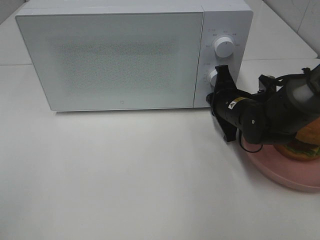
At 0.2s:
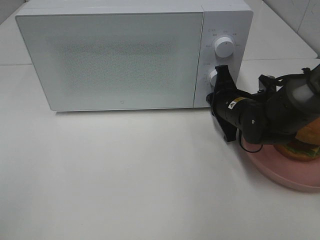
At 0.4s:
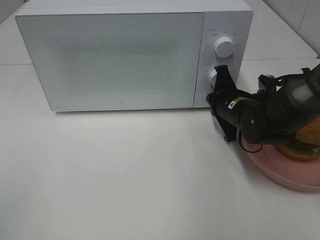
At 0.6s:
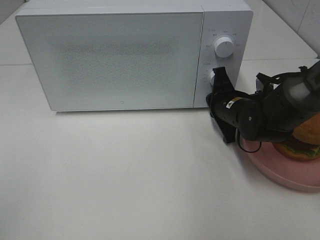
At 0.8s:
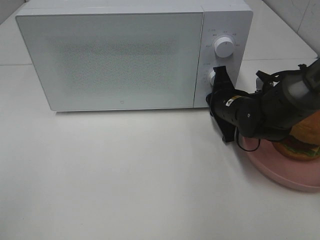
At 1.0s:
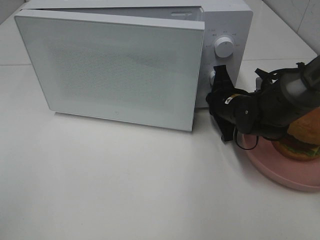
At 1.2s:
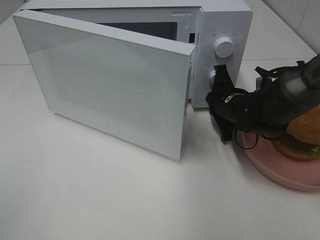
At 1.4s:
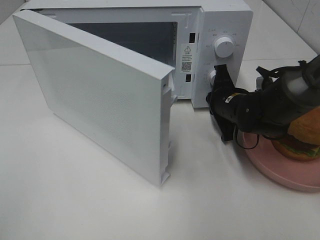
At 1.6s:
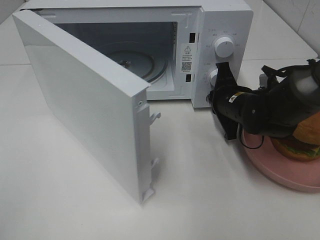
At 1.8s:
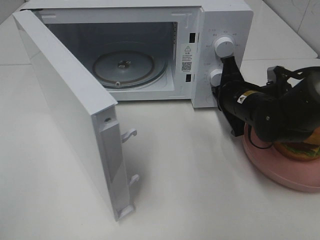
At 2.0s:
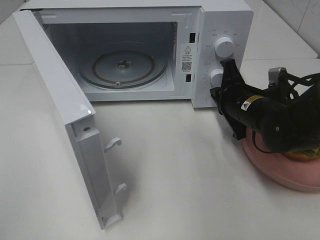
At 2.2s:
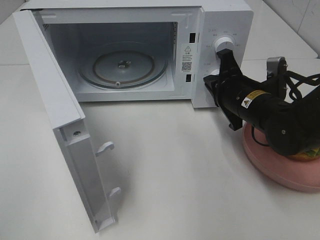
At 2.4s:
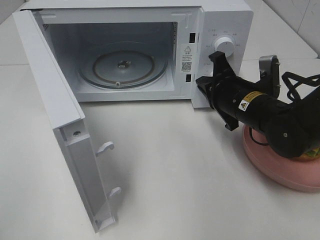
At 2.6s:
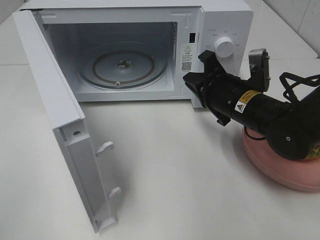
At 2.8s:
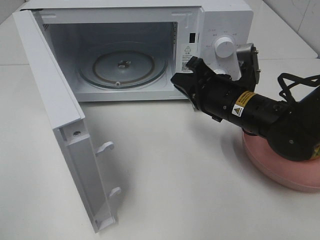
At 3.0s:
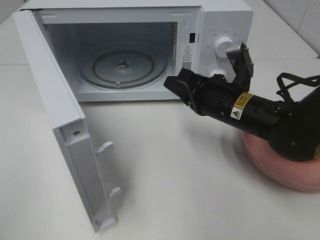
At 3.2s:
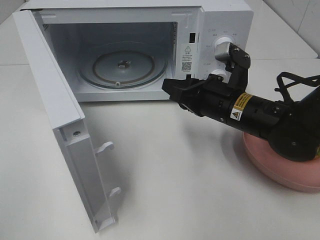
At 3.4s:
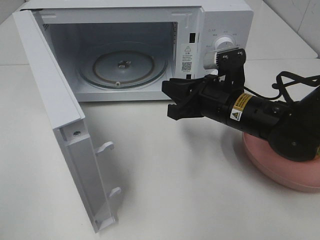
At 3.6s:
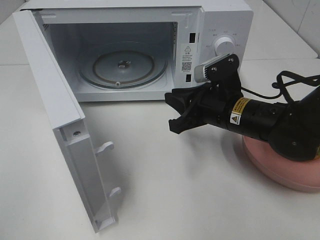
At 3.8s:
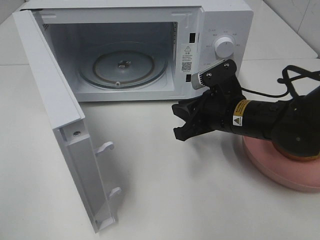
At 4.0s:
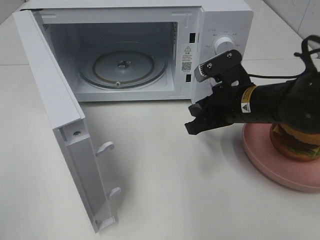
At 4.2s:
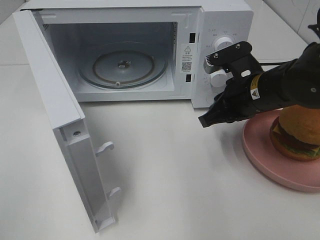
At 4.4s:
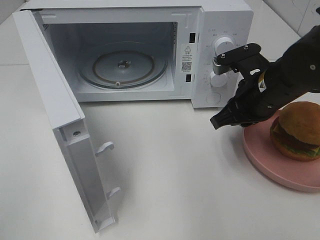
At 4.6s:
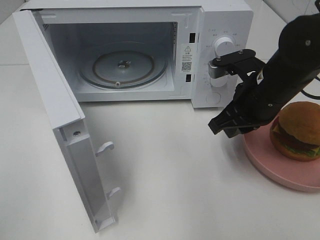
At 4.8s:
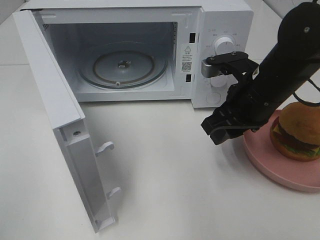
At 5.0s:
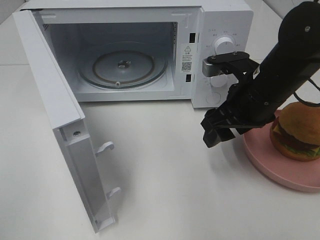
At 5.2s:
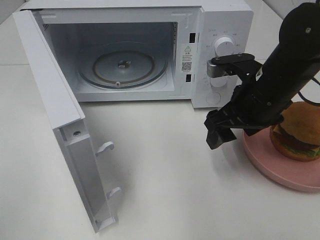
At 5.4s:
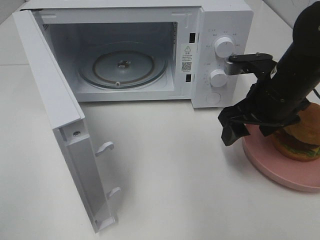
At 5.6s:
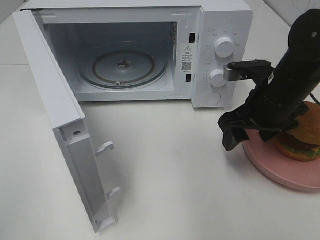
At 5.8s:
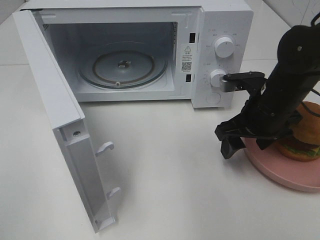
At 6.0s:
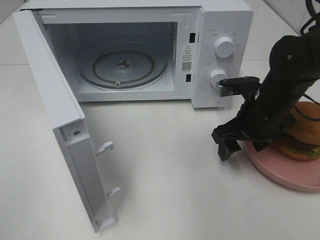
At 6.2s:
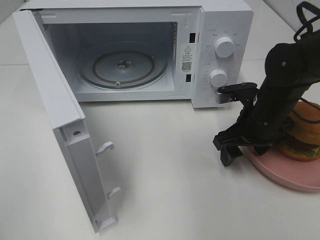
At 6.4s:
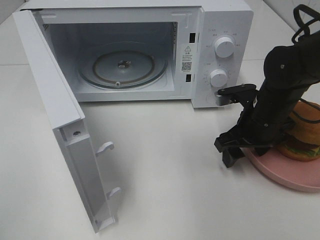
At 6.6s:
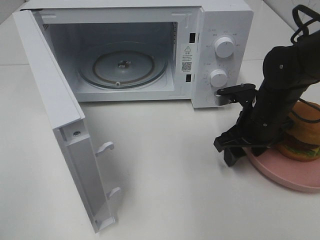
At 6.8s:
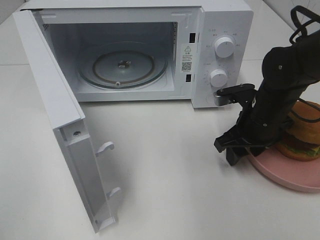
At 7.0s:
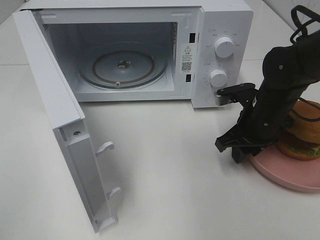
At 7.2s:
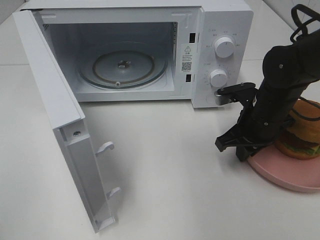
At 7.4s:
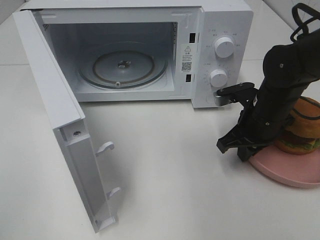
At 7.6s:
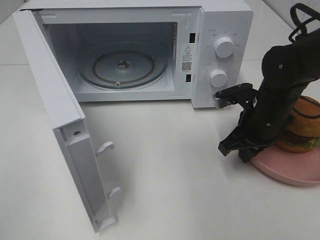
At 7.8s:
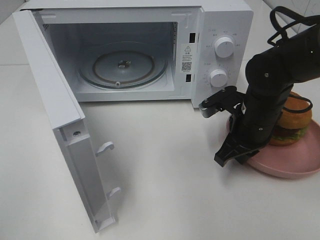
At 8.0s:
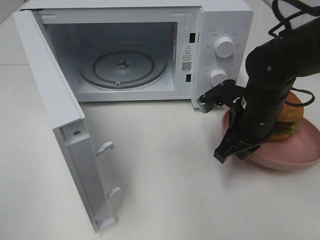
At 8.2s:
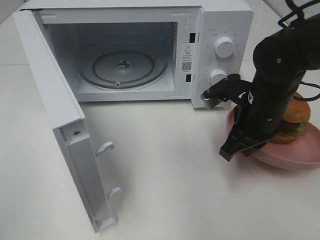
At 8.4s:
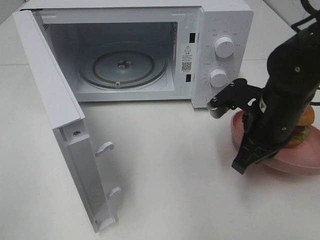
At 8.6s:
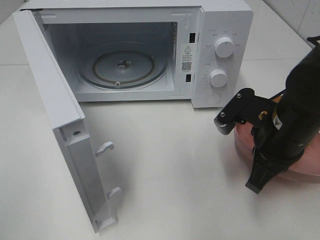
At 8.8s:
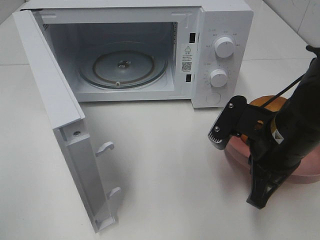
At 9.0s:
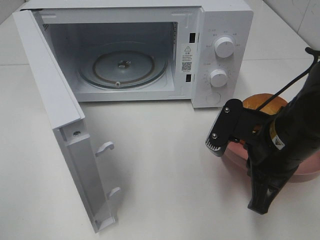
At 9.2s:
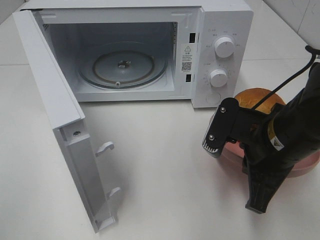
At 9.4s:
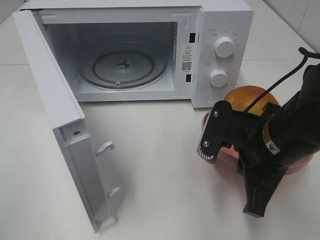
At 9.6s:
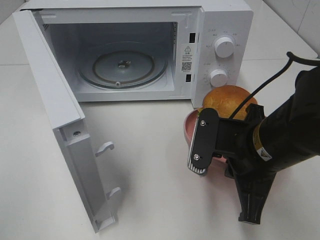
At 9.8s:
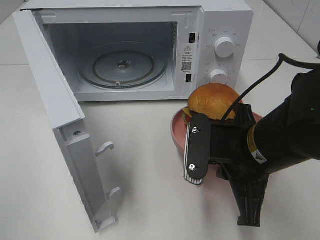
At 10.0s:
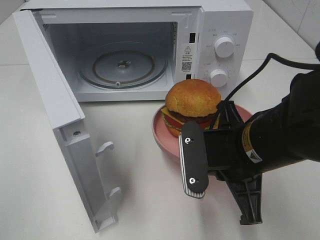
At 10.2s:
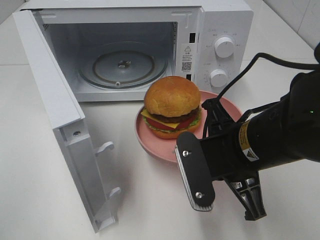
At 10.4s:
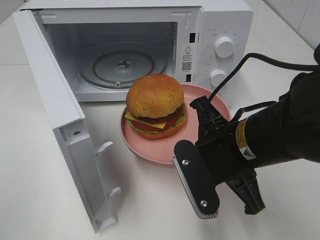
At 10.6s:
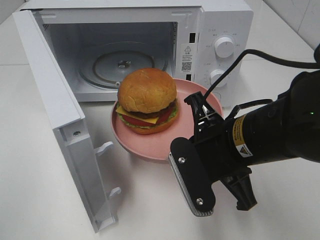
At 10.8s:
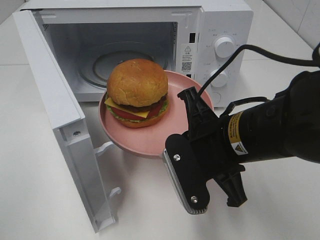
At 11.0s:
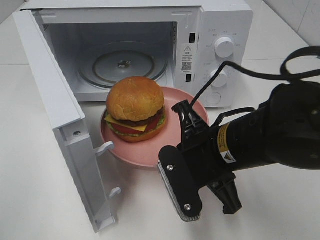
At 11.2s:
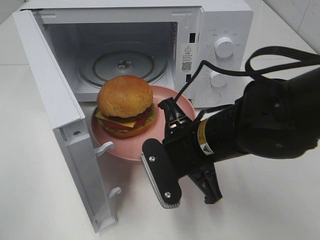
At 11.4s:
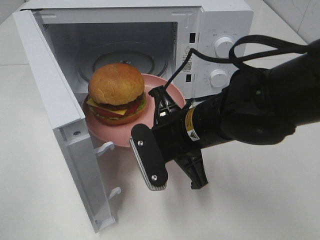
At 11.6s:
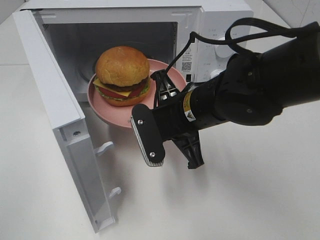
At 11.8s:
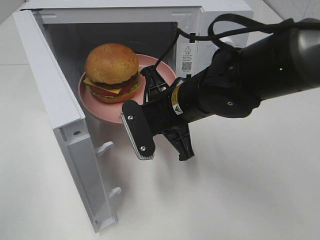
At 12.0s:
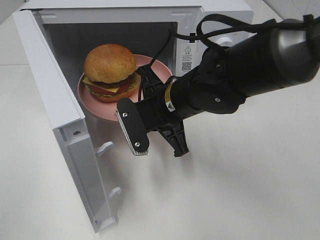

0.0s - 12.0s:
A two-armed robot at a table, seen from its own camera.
Task of the whole recording: Heat the burger.
Step, 1.8s - 7.2s: Right hand: grab the plate with the hamburger.
1.6s - 3.0s: The right gripper moves backward, some 5 cm.
3.0s - 4.4s: The right gripper ends up roughly 5 cm from where it was.
4.4s - 6.0s: The right gripper opens up.
6.0s - 7.6s: The right gripper closes its fingers.
7.6s - 9.0s: The right gripper shifts roughly 10 cm backward and upward.
9.0s - 10.4s: The right gripper goes approximately 5 cm to the left.
10.4s - 12.0s: The right gripper travels forward and to the left by some 10 cm.

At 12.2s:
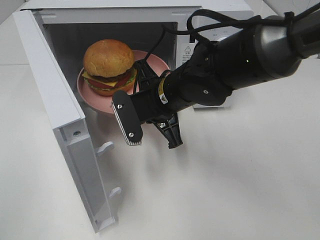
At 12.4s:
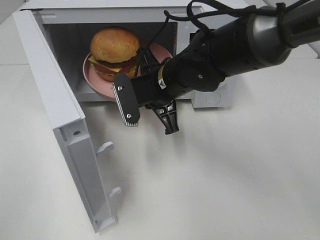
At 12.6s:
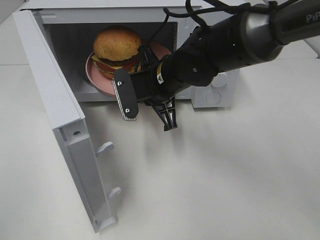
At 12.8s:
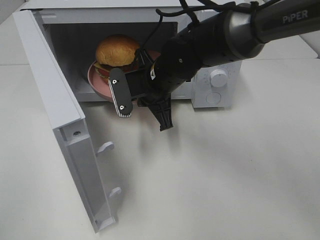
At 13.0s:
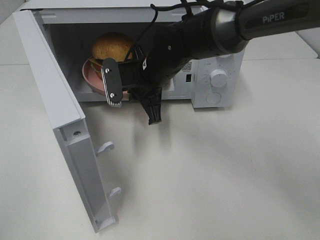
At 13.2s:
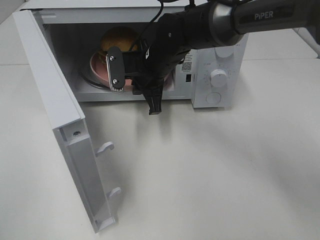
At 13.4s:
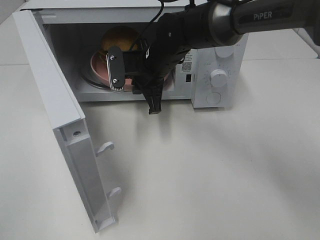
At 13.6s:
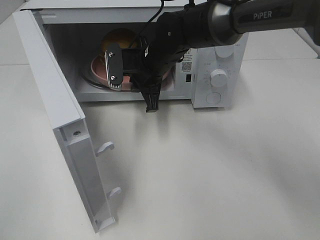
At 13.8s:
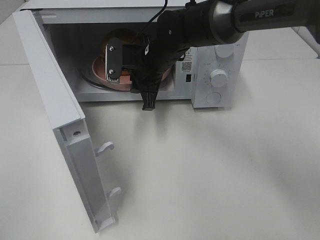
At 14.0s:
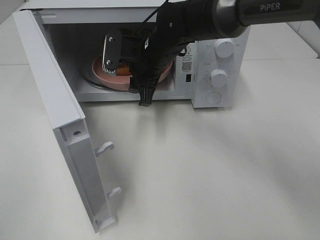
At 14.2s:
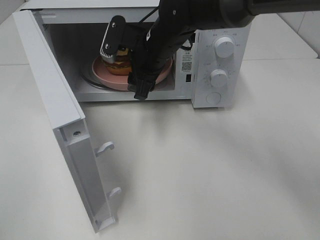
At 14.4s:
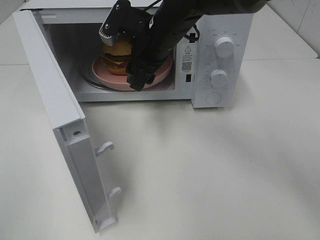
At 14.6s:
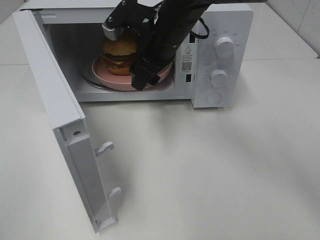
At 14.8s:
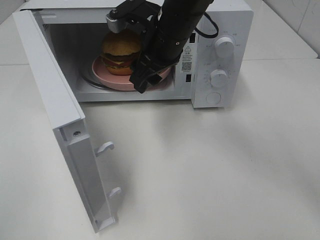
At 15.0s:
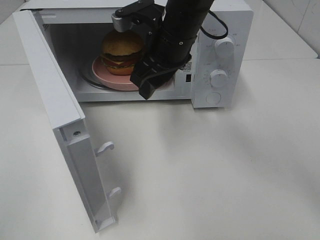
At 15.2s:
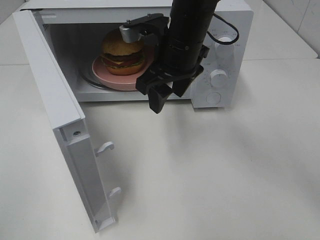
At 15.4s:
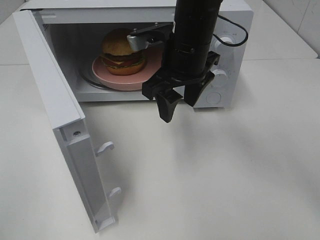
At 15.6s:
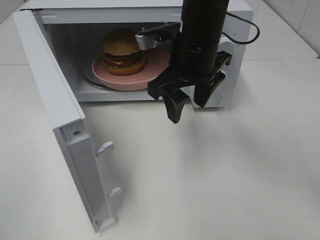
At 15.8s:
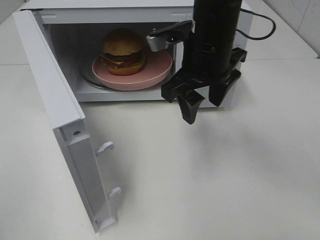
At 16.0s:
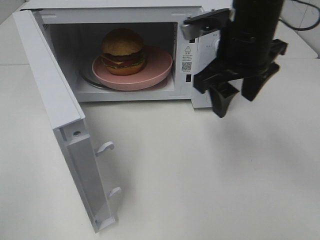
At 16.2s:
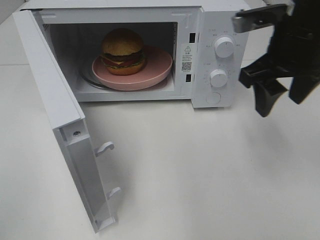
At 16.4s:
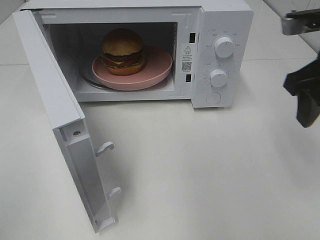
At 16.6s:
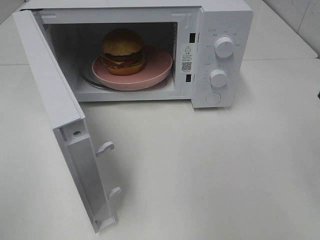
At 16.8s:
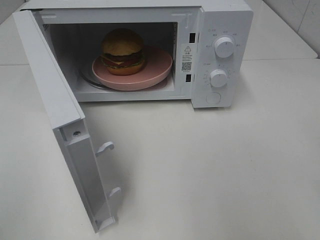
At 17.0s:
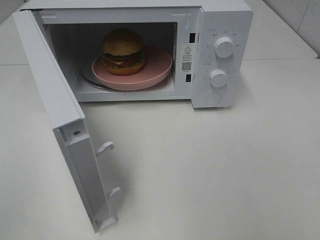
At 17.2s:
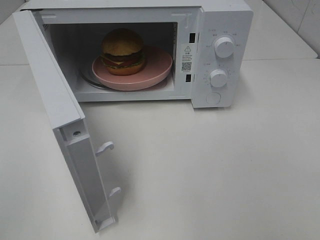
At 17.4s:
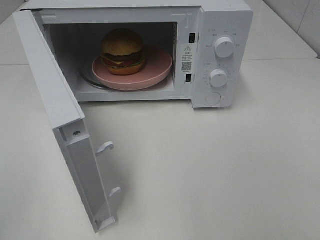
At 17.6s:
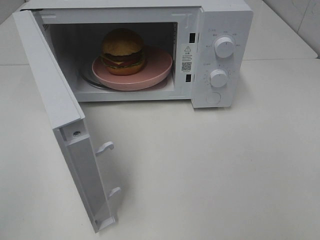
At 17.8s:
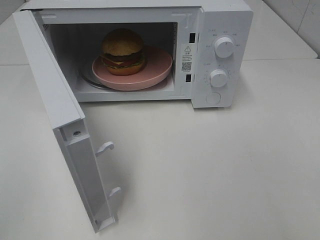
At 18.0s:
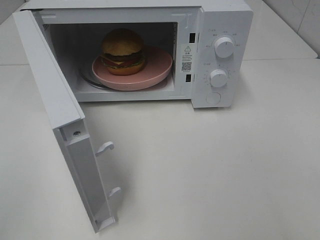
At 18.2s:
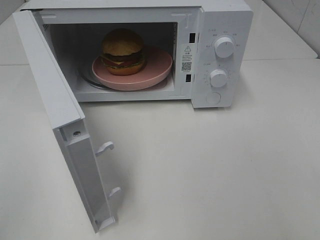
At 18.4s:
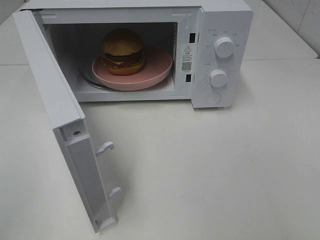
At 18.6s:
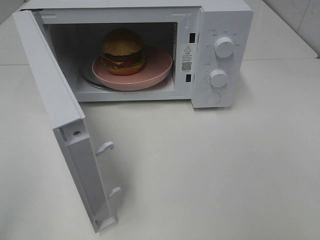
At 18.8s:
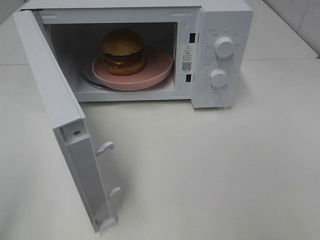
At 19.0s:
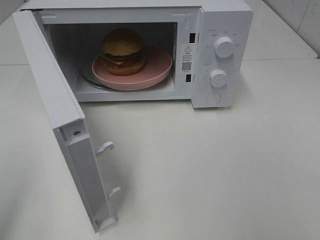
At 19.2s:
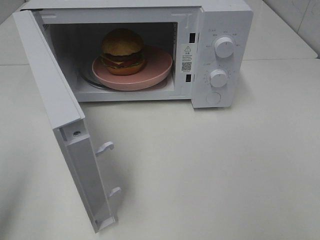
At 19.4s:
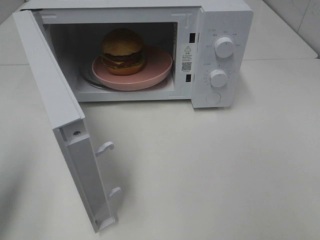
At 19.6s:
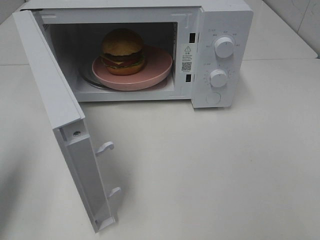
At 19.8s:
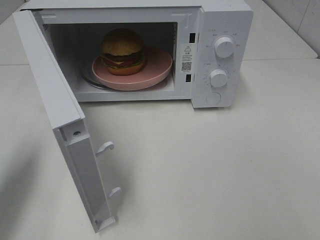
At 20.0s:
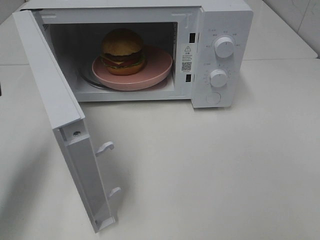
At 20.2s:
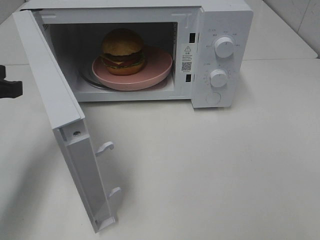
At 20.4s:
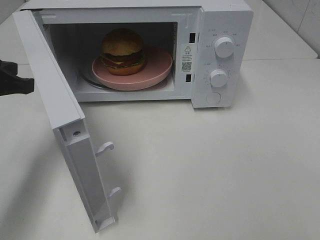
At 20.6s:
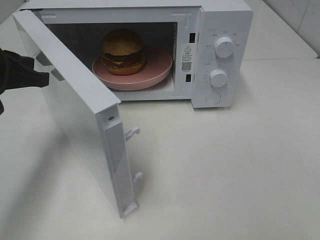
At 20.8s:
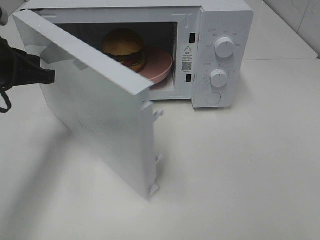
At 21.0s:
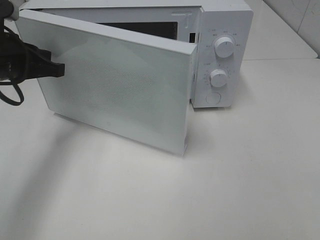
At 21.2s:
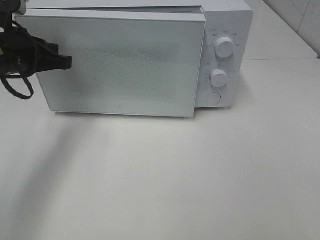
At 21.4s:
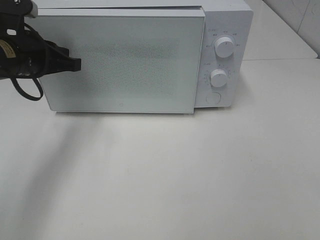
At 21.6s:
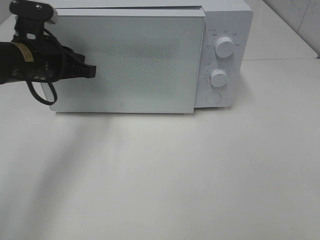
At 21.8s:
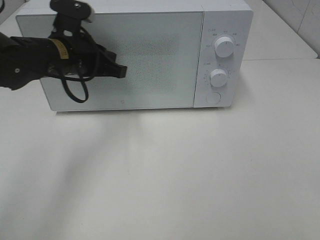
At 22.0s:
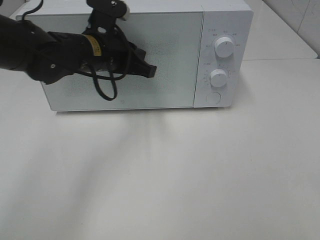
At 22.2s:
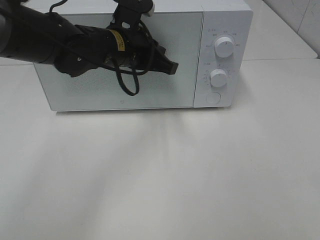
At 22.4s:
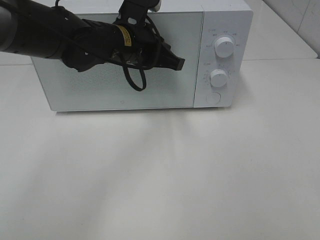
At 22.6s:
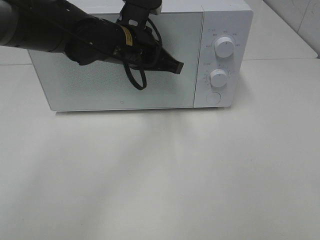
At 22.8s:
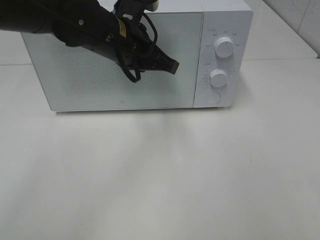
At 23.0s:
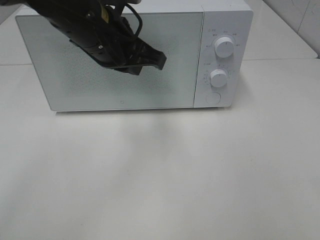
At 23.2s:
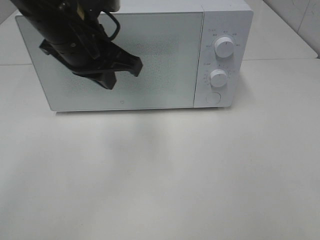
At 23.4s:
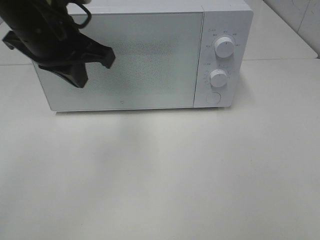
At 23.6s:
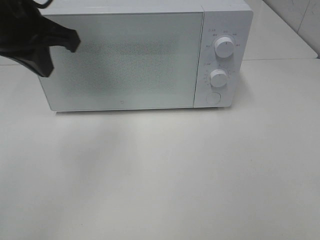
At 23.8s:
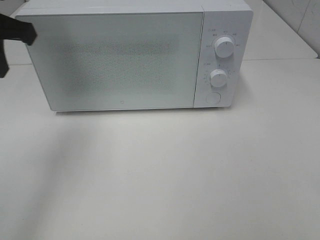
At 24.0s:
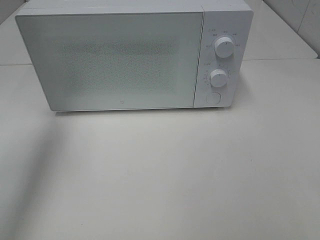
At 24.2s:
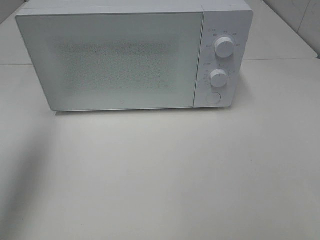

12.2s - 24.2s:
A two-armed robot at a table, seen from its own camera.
Task of the whole recording: Heat the burger.
Step, 14.0s - 21.8s: Left hand: close the microwave door.
12.2s - 13.8s: The right gripper shifts some 10 cm forward.
13.8s - 15.2s: The right gripper travels upward and backward by about 10 cm, and opens its fingers.
15.2s - 16.6s: The right gripper goes approximately 25 cm to the right and backward.
18.2s - 19.8s: The left gripper is displaced forward by about 20 cm.
19.8s - 21.2s: The left gripper heads forward and to the right, covering approximately 15 cm.
21.2s - 22.6s: The left gripper heads to the right, covering about 20 cm.
22.6s - 24.2s: The left gripper is displaced to the left, upward and backward by approximately 30 cm.
